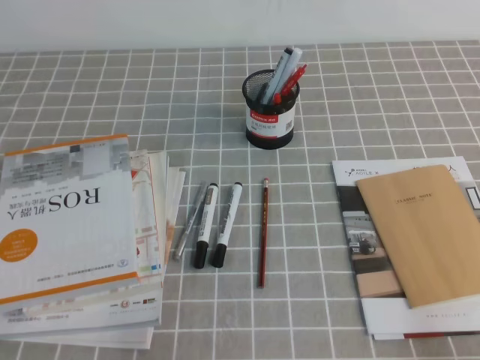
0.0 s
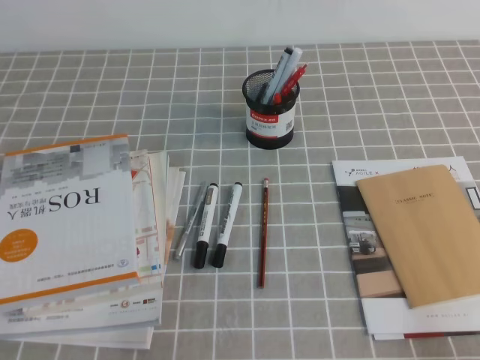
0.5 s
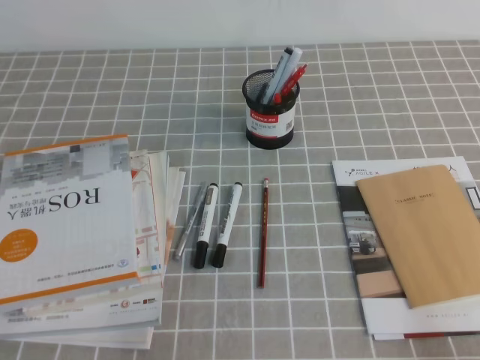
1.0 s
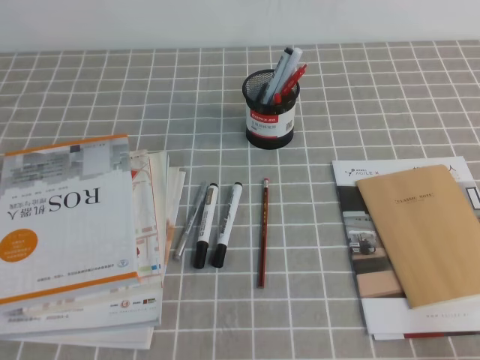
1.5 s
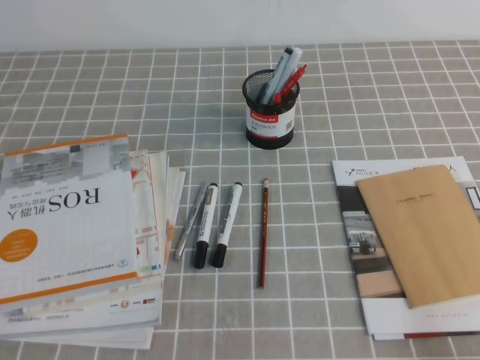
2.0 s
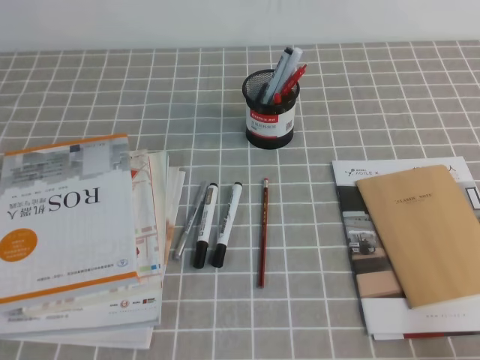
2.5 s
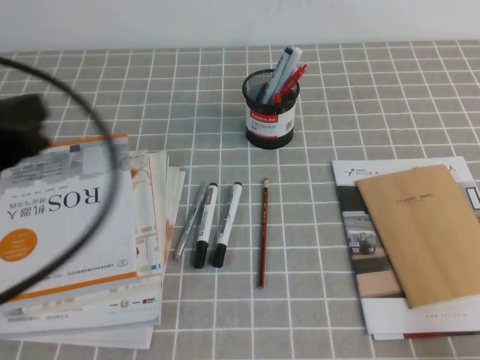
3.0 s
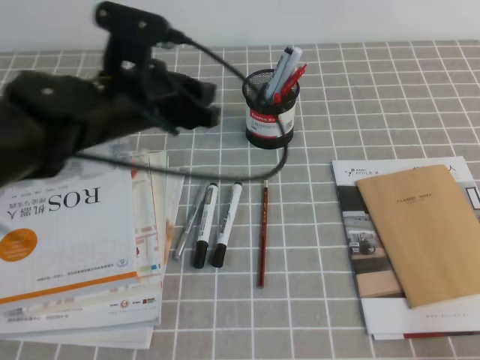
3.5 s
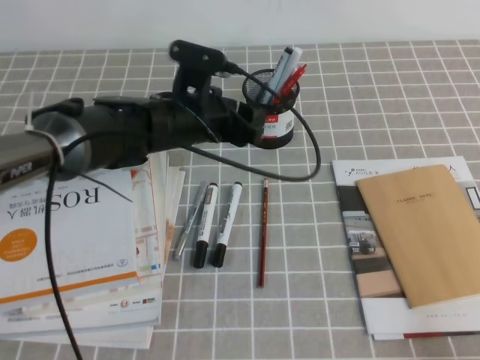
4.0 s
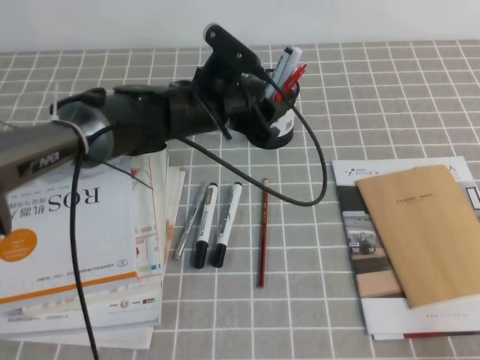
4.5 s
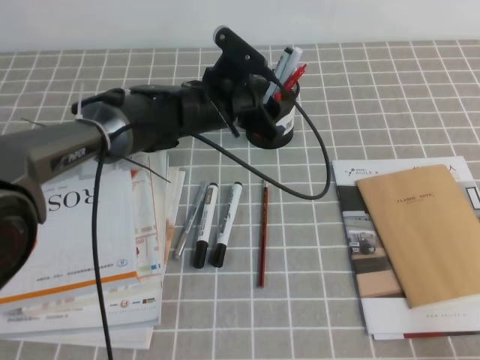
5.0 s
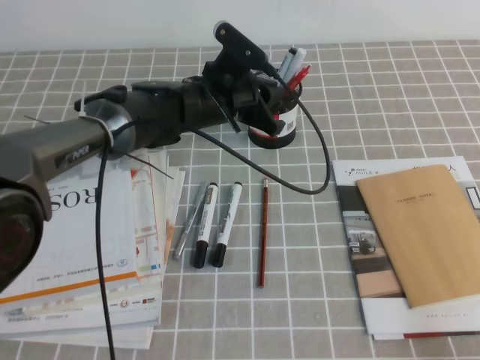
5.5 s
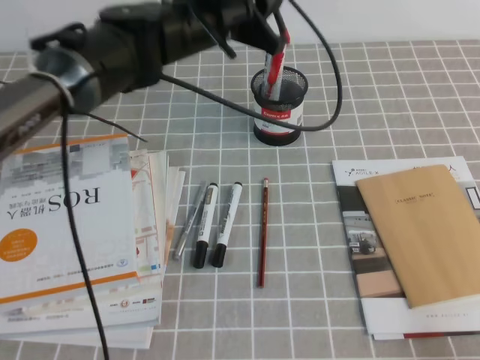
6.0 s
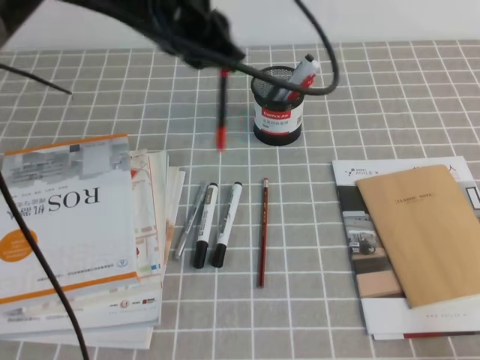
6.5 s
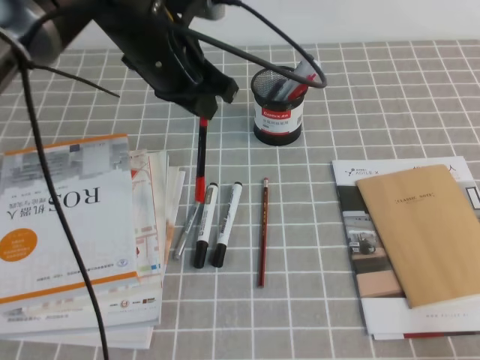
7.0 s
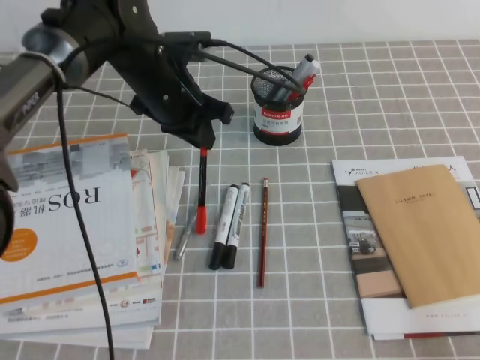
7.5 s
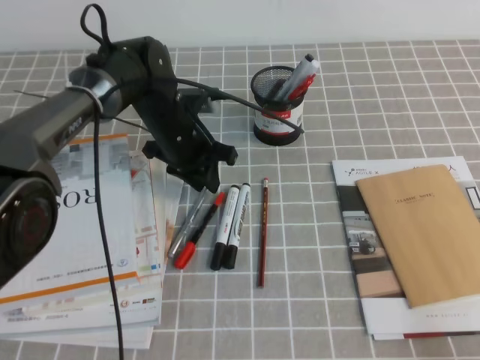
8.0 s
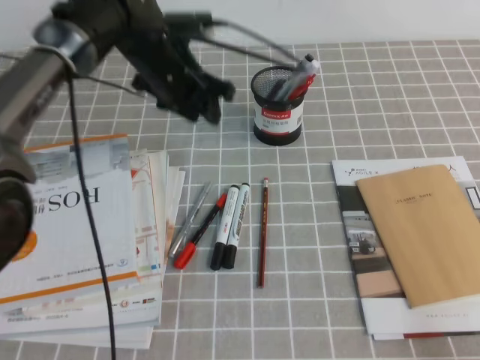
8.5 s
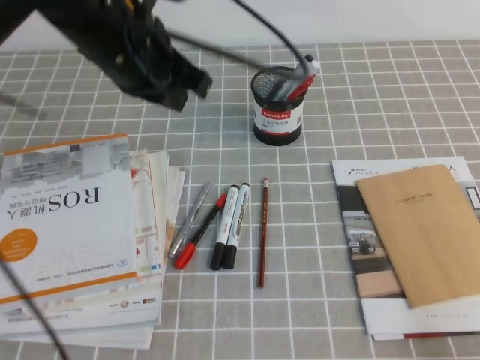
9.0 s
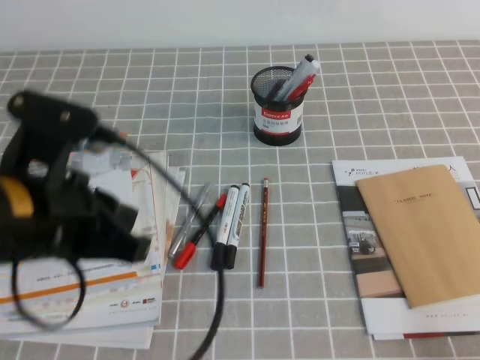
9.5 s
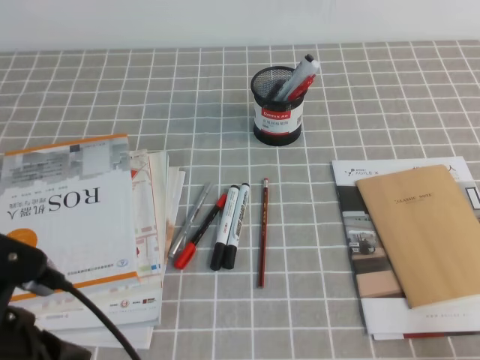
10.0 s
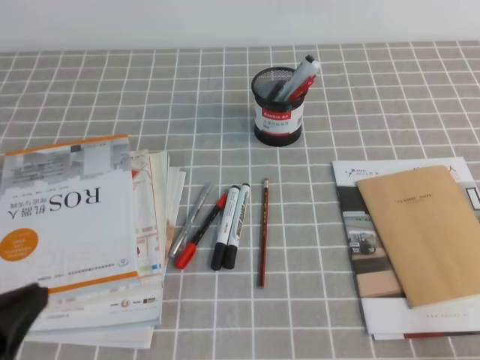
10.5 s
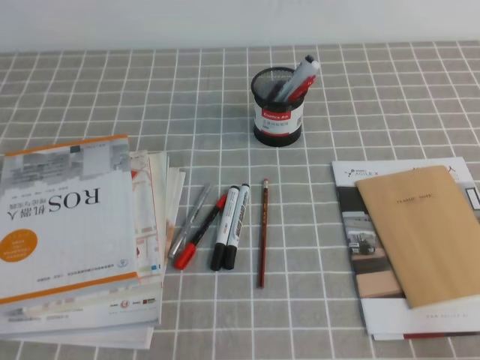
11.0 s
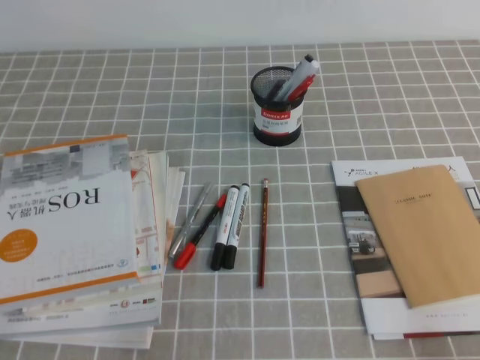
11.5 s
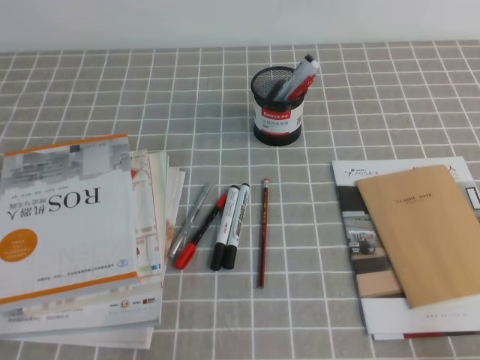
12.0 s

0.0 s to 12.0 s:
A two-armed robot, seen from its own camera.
Step, 0.0 to 12.0 s: Pick up the pen from the pen holder.
2.0 to 4.0 s: The left gripper travels forward and to the right by some 40 cm, and opens up.
4.0 to 6.0 s: The left gripper shifts approximately 10 cm upward, and closes its fingers.
6.0 to 8.0 s: The left gripper shifts some 15 cm downward and to the left.
8.0 to 10.0 s: The left gripper moves backward, some 35 cm, and closes its fingers.
10.0 to 12.0 s: The left gripper heads downward, to the left and backward, covering about 15 cm.

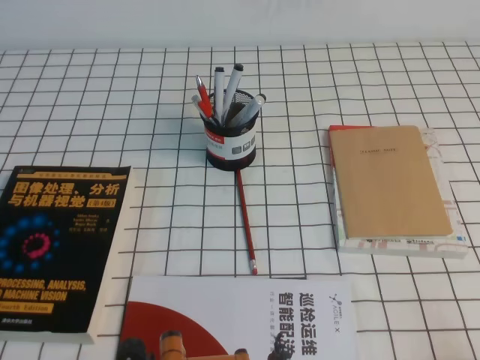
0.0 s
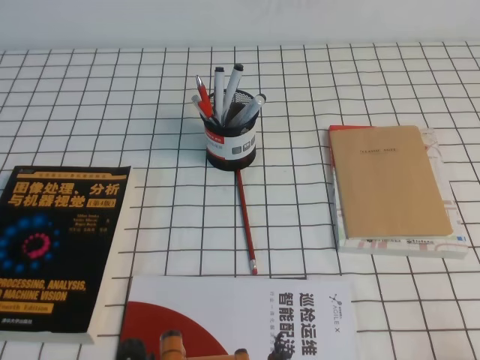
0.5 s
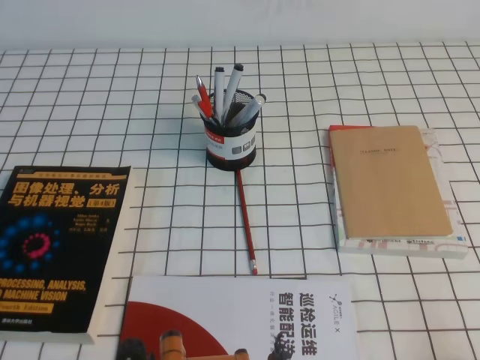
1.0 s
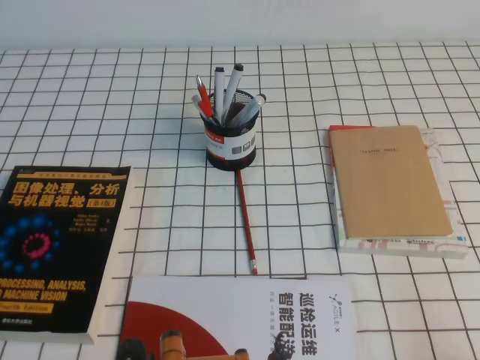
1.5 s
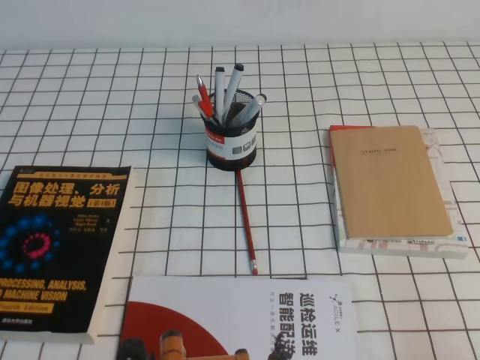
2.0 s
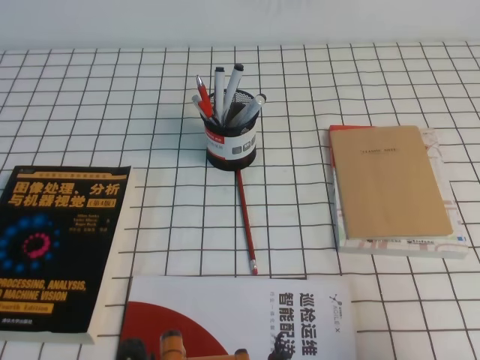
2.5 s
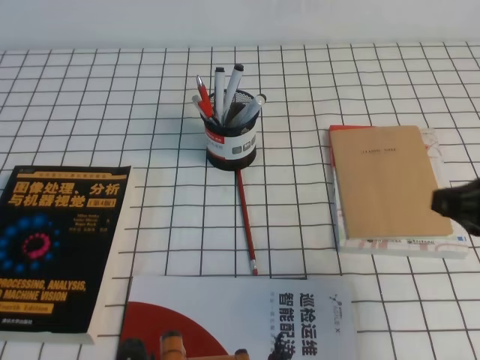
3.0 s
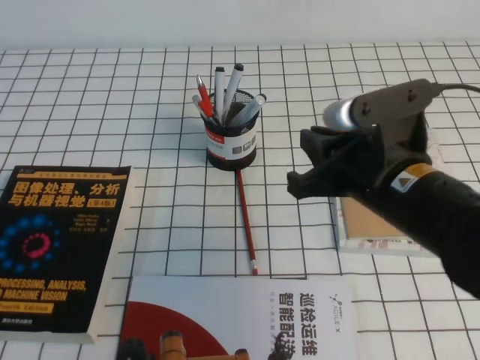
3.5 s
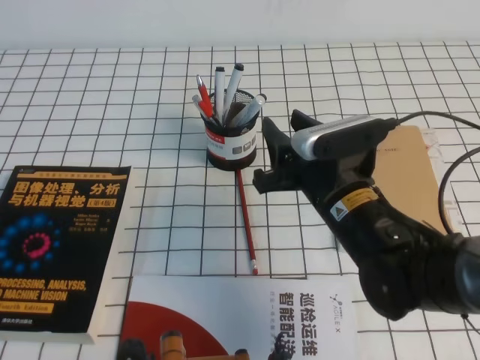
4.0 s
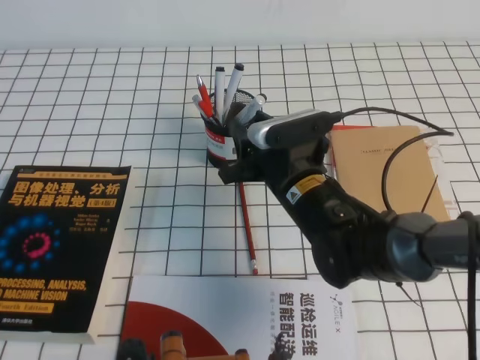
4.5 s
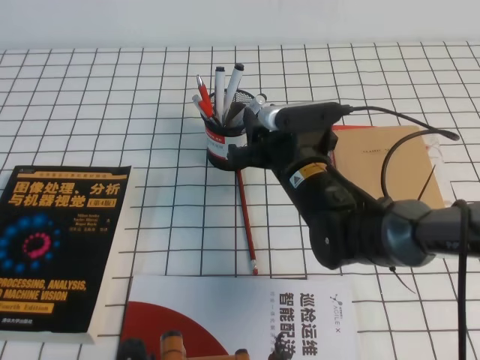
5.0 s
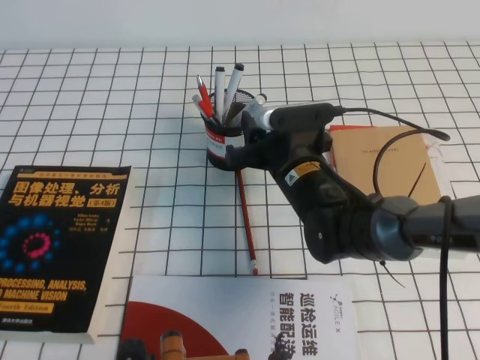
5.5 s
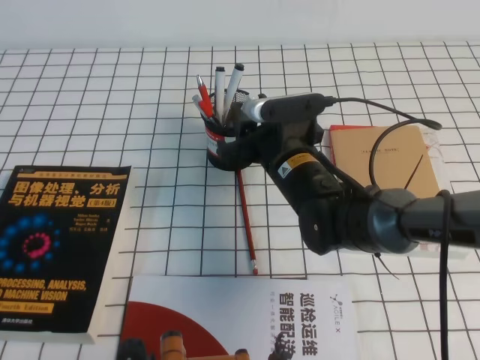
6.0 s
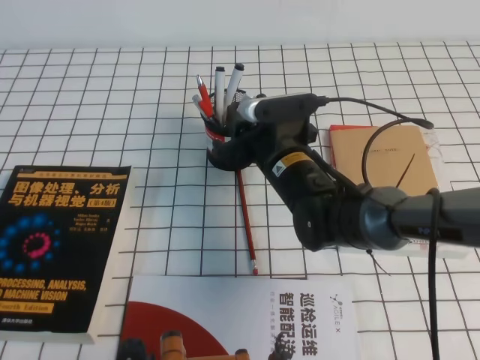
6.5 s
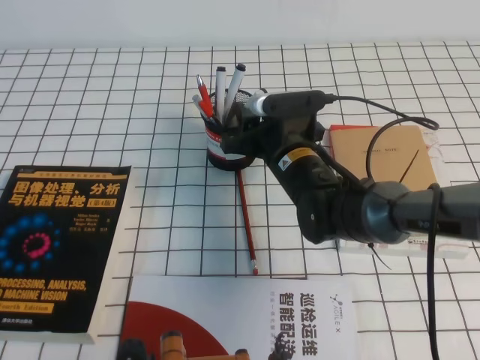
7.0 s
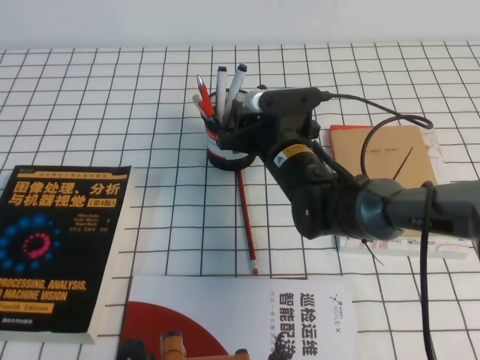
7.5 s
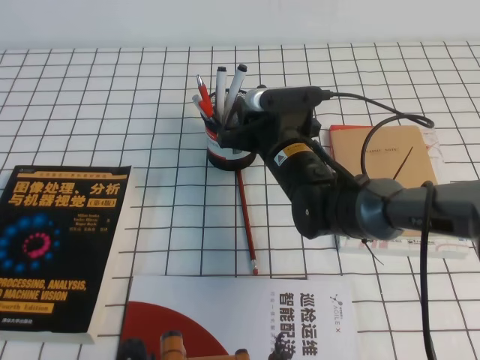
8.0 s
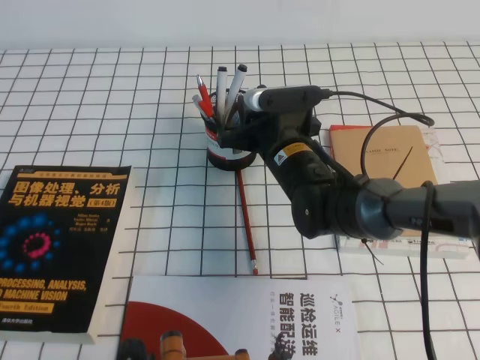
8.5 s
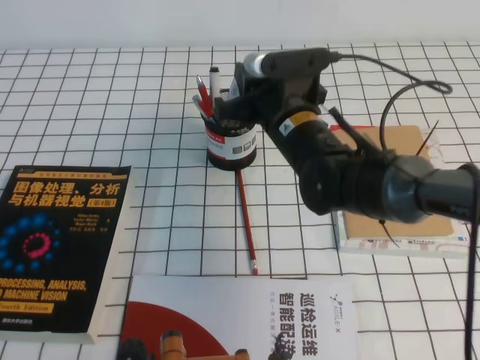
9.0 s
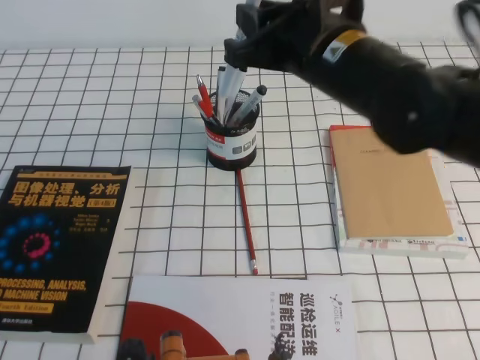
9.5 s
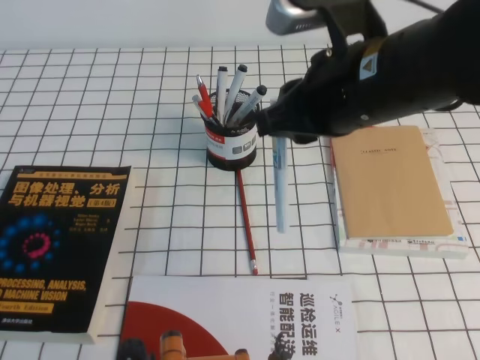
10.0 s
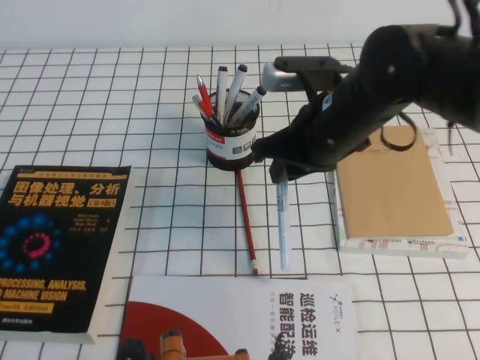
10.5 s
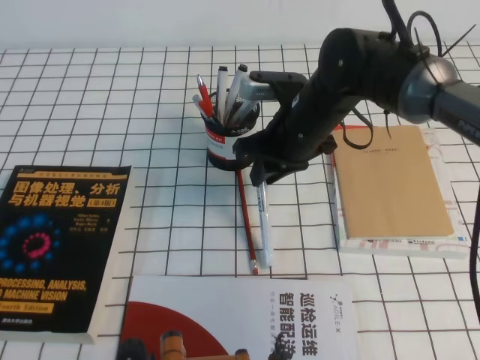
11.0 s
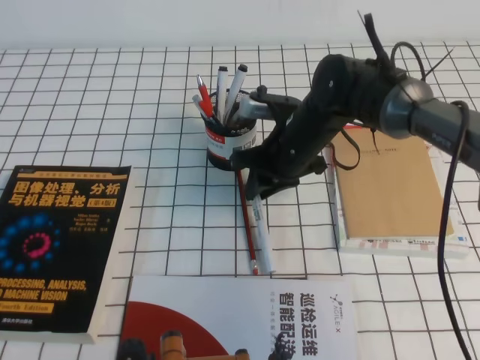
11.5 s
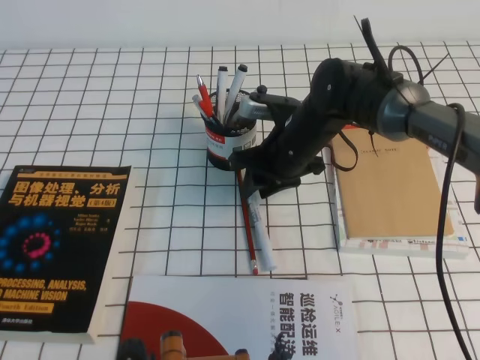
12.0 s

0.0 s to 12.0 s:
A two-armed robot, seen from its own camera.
2.0 to 4.0 s: The right gripper travels to the left and forward by about 30 cm, and opens.
4.0 to 6.0 s: The right gripper travels forward by roughly 10 cm.
6.0 to 8.0 s: The grippers move only a little.
8.0 to 10.0 s: The right gripper shifts some 20 cm upward and backward.
10.0 to 12.0 s: The right gripper goes some 25 cm downward and forward.

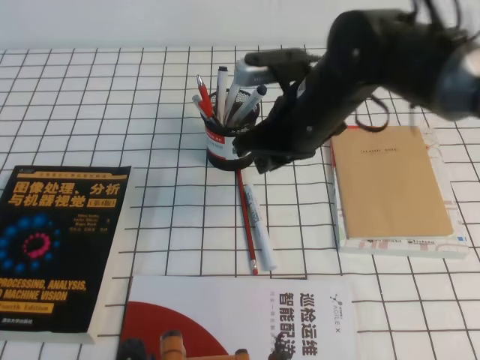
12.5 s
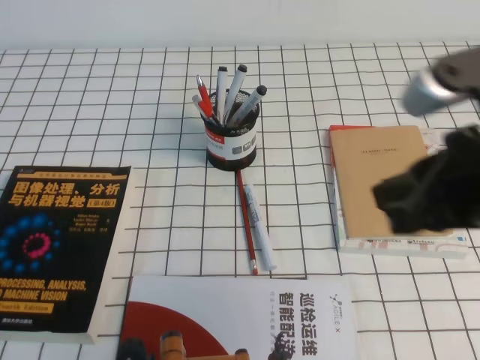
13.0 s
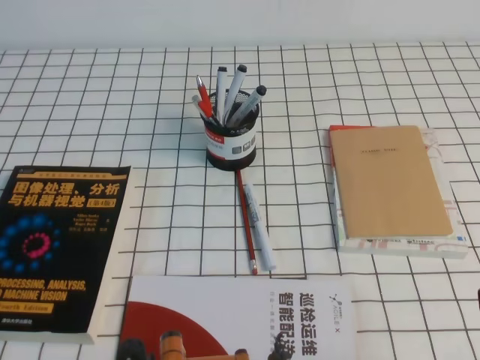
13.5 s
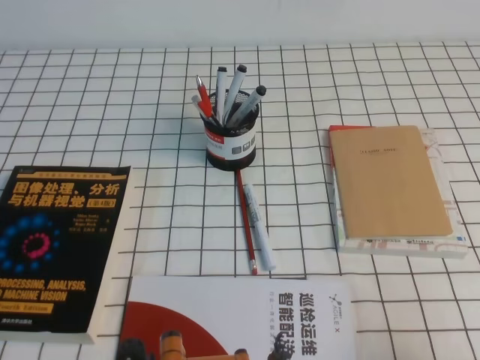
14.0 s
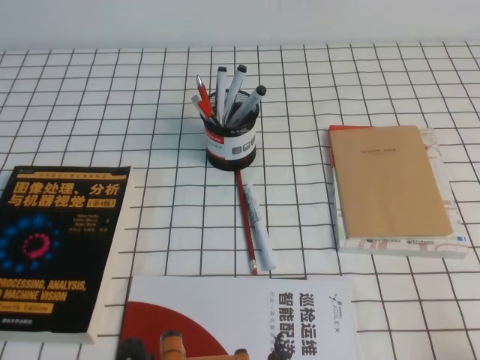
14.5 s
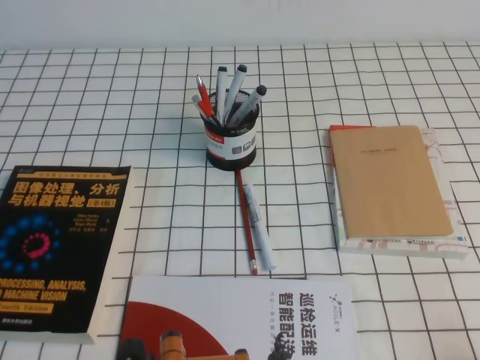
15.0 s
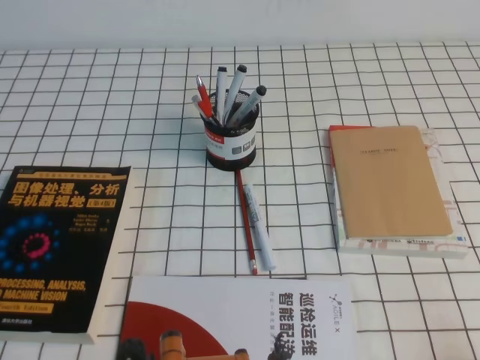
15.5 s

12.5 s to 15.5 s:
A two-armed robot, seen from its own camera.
Step, 12.5 to 15.5 s: Pick up the pen from the pen holder.
12.5 to 14.0 s: The right gripper shifts approximately 35 cm backward and to the right, and closes.
14.0 to 15.5 s: The right gripper travels downward by some 5 cm.
